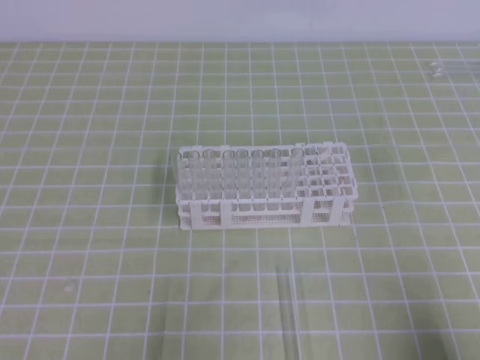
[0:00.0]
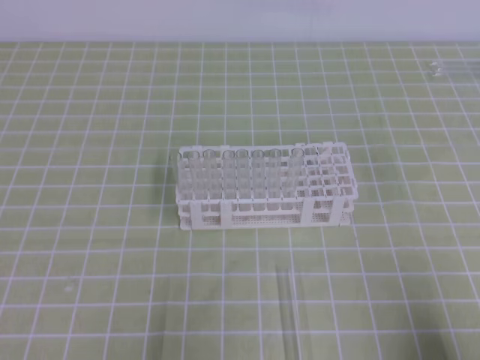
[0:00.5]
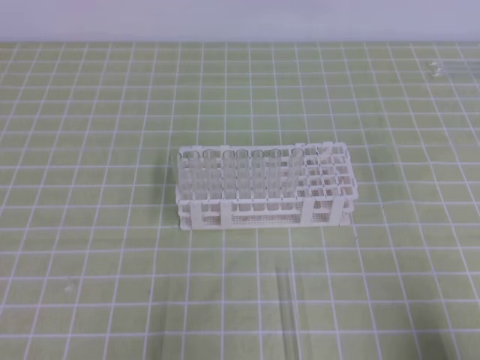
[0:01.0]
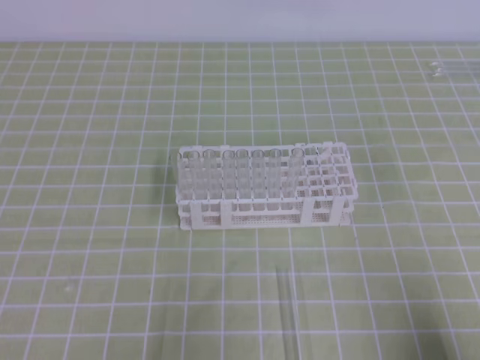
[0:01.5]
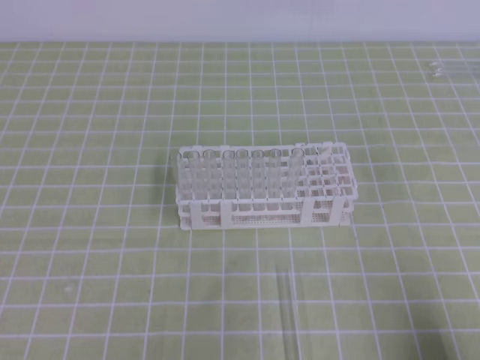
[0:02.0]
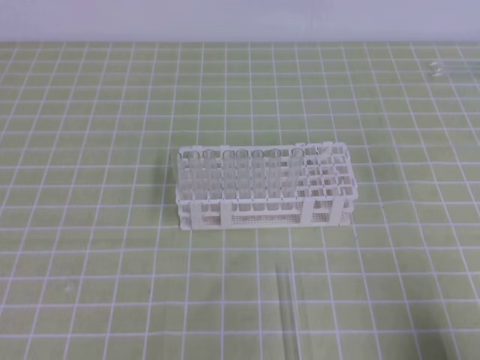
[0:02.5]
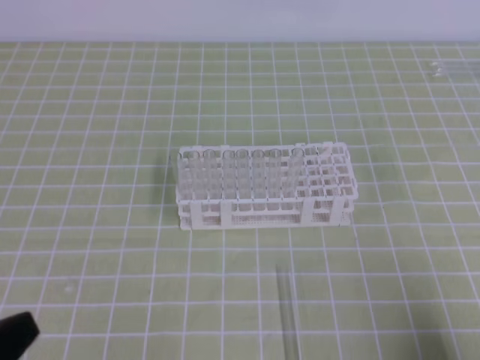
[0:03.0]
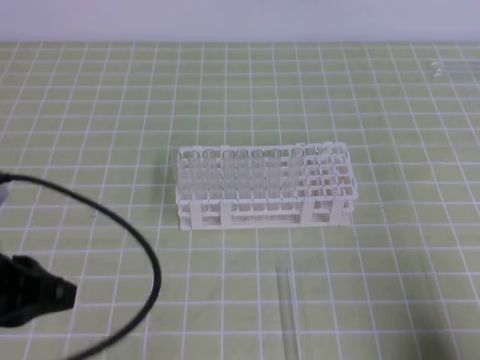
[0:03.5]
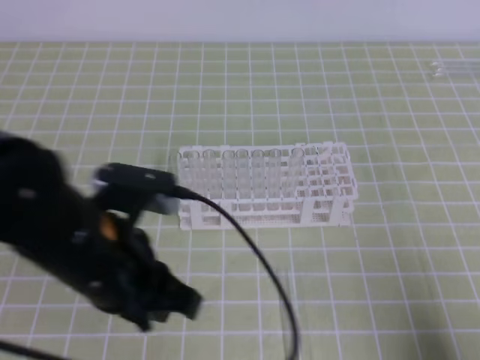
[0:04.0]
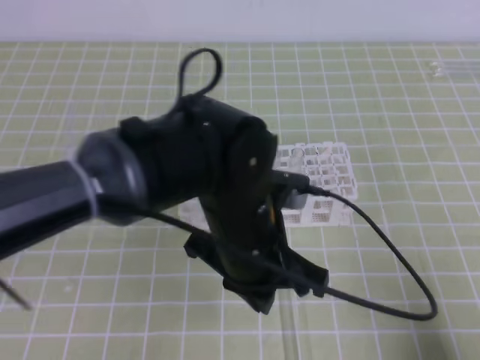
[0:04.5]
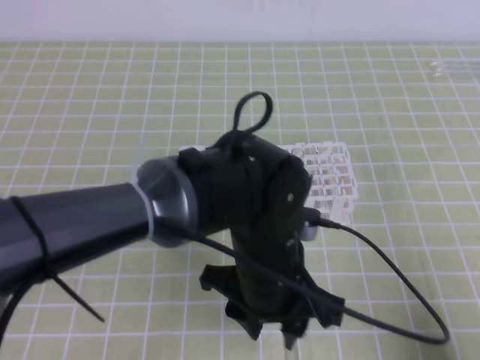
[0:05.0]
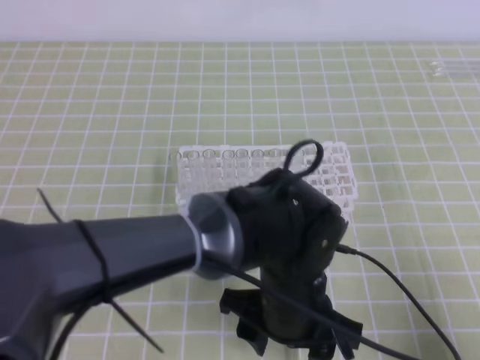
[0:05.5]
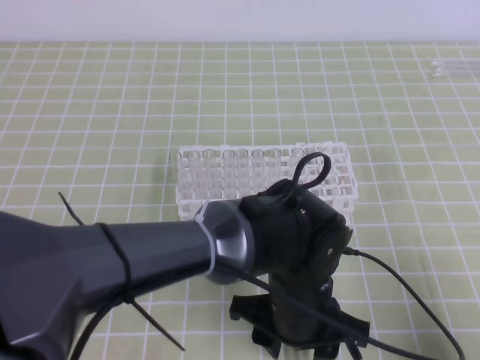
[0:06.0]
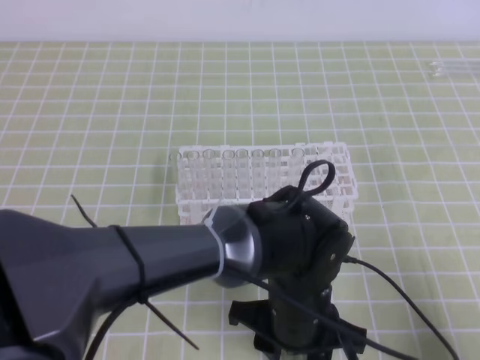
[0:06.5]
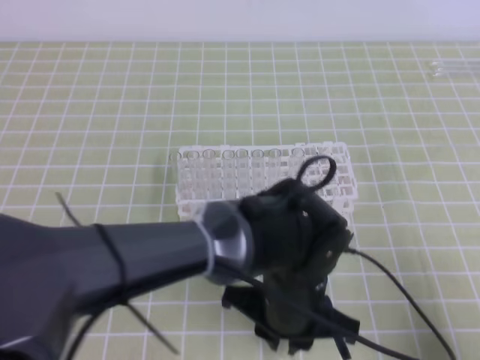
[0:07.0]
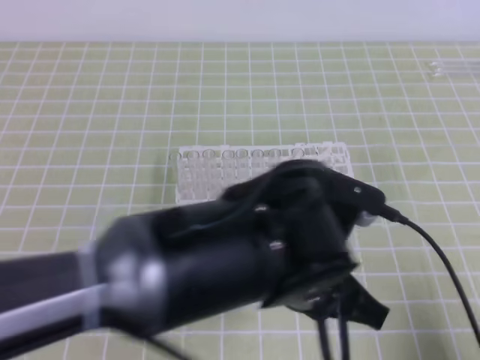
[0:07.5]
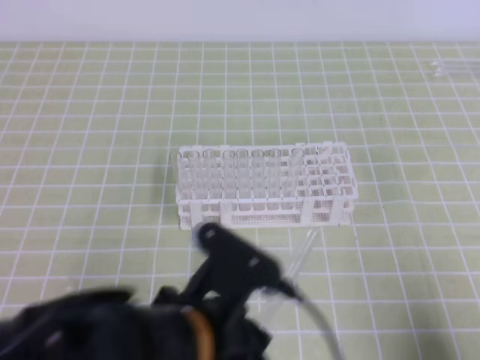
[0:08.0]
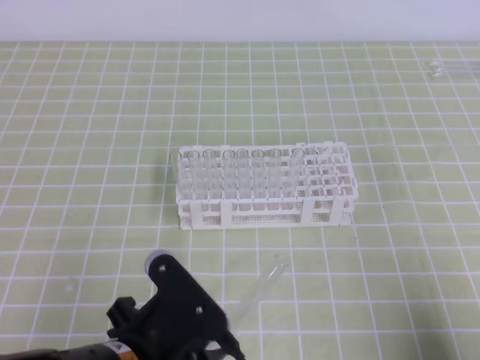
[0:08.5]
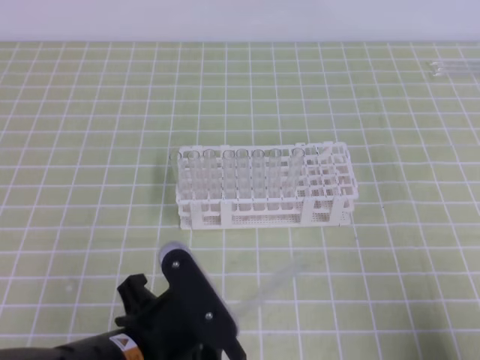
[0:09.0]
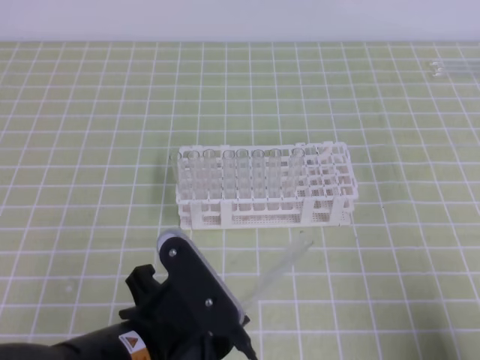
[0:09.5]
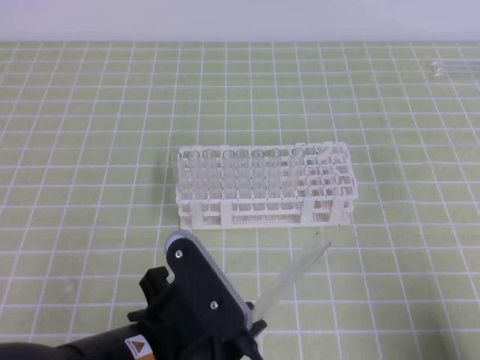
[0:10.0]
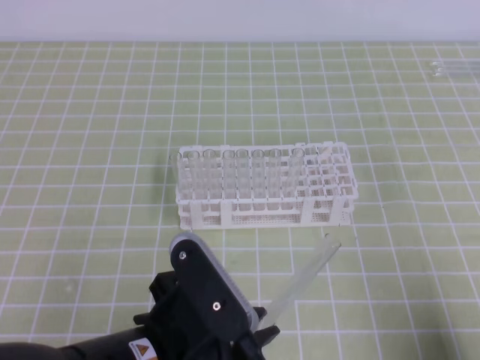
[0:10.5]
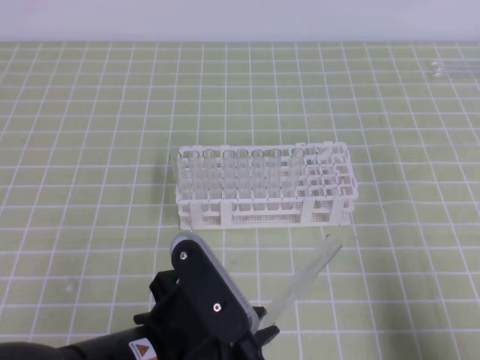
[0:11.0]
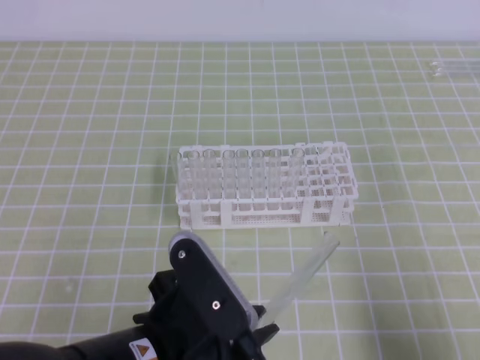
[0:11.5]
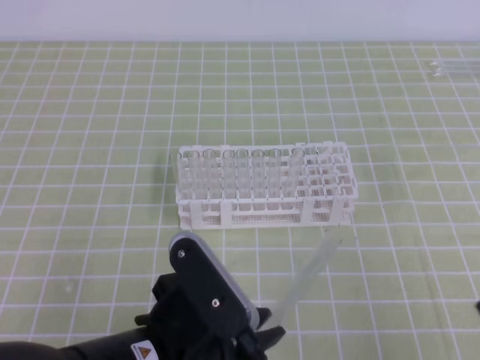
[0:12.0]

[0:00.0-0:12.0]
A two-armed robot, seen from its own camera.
0:02.0 to 0:04.0: The left gripper is displaced to the right, forward and upward by approximately 20 cm.
0:04.0 to 0:06.0: The left gripper heads to the right and downward, covering approximately 20 cm, and opens up.
0:06.0 to 0:08.0: The left gripper goes approximately 15 cm to the left, backward and upward, and closes its fingers.
0:10.0 to 0:12.0: The right gripper moves about 5 cm.

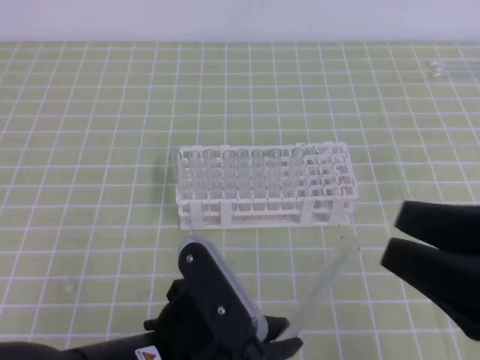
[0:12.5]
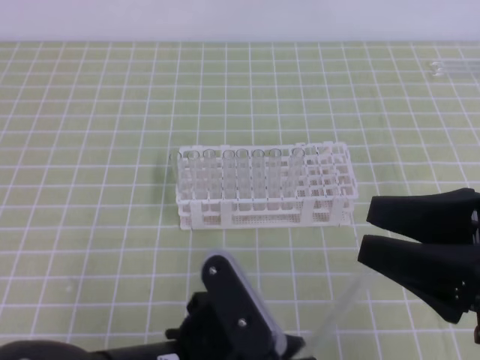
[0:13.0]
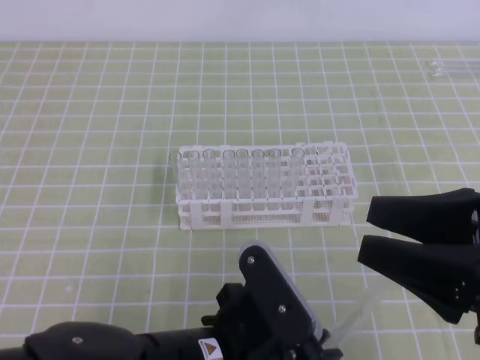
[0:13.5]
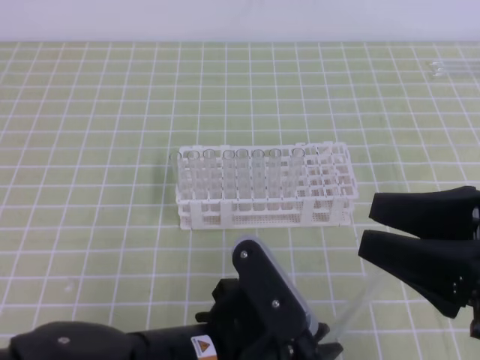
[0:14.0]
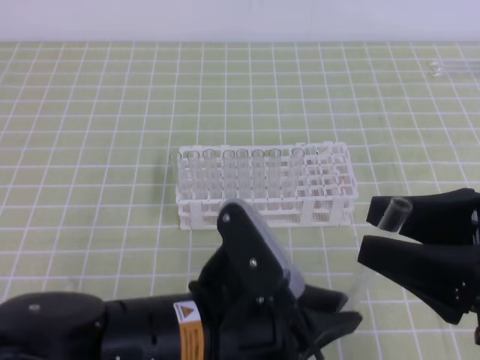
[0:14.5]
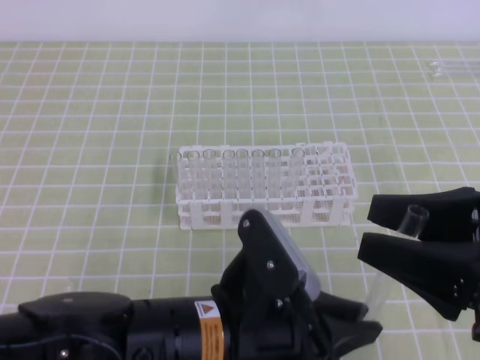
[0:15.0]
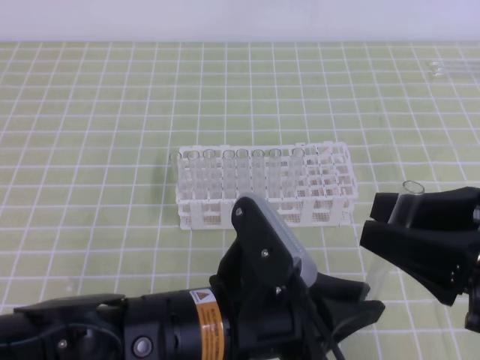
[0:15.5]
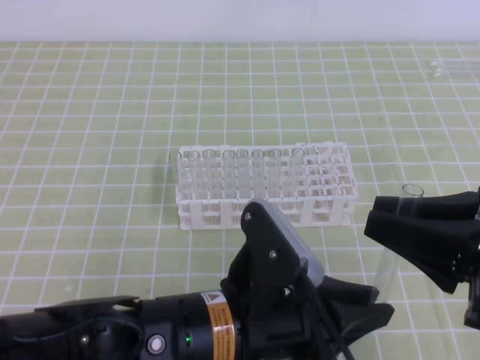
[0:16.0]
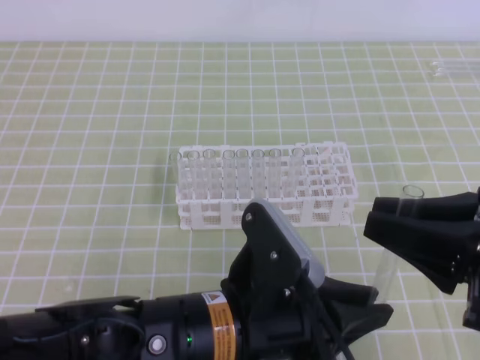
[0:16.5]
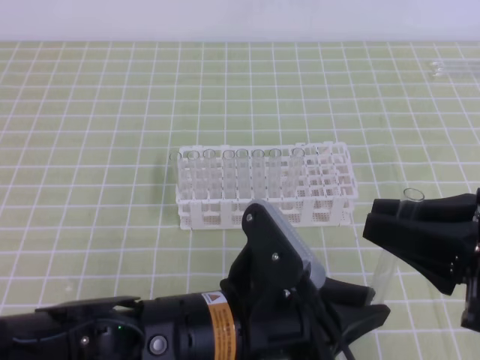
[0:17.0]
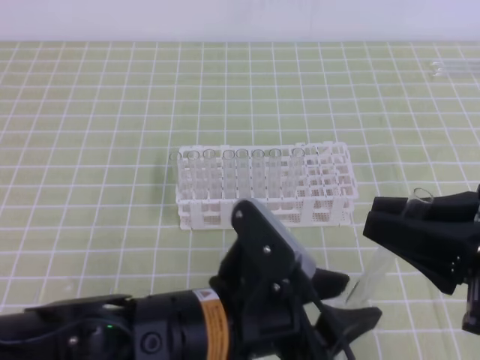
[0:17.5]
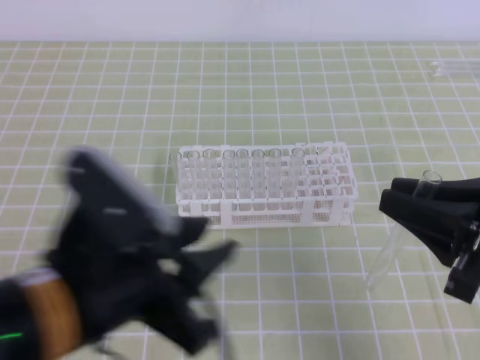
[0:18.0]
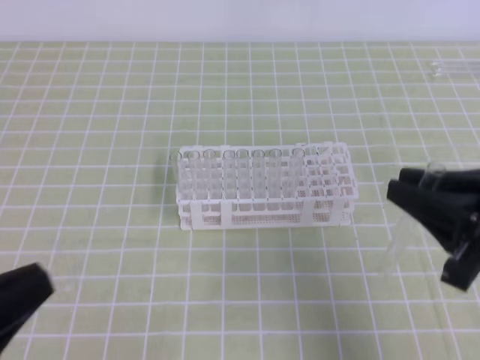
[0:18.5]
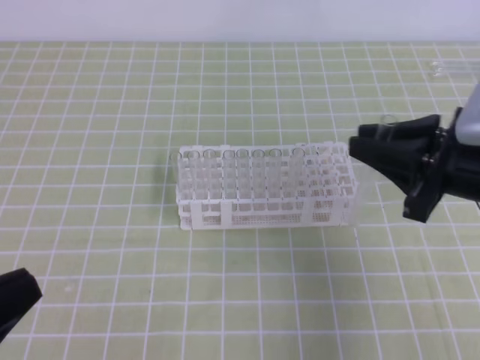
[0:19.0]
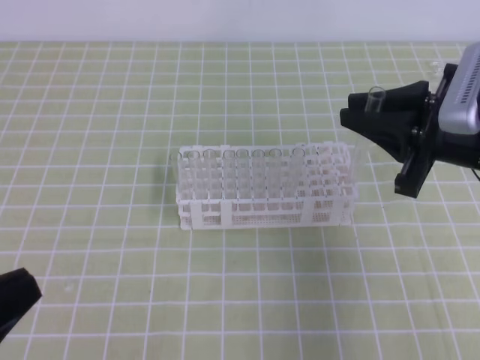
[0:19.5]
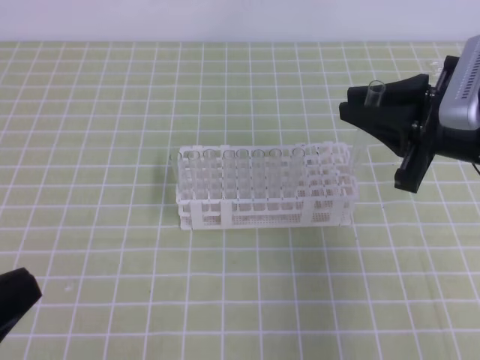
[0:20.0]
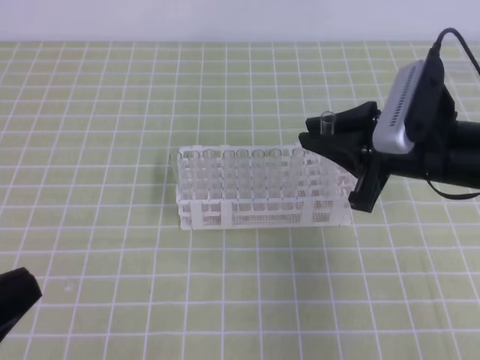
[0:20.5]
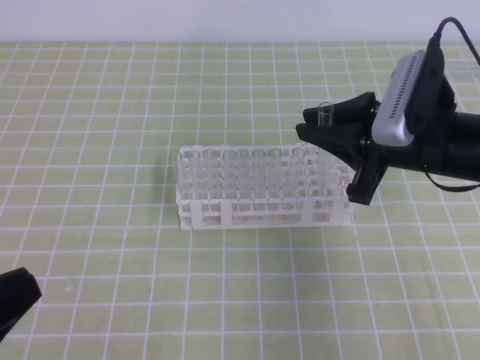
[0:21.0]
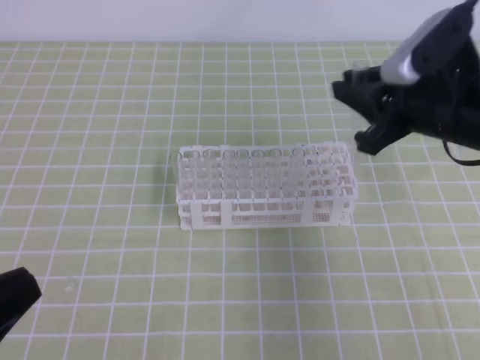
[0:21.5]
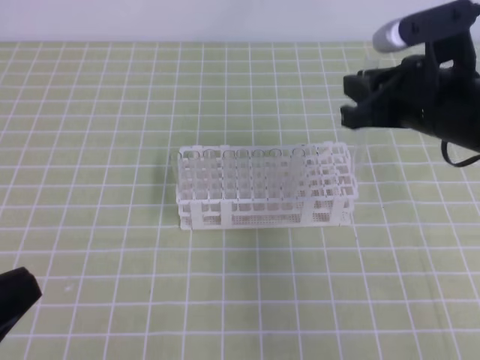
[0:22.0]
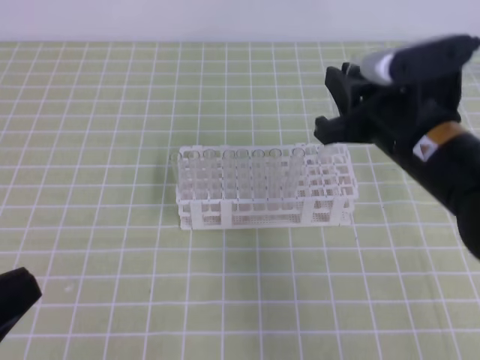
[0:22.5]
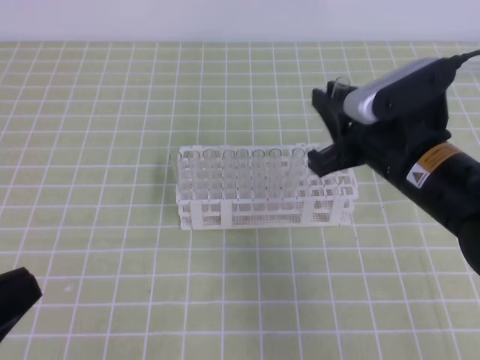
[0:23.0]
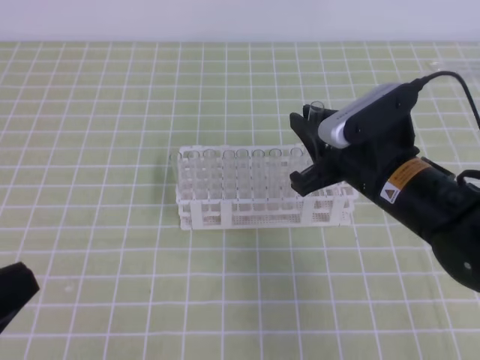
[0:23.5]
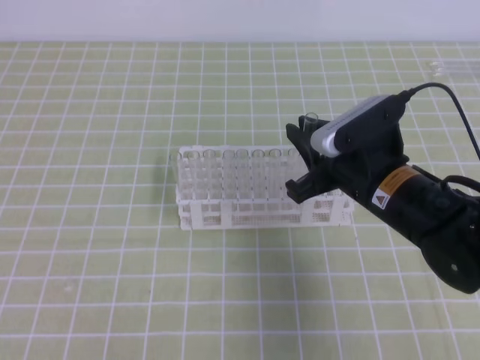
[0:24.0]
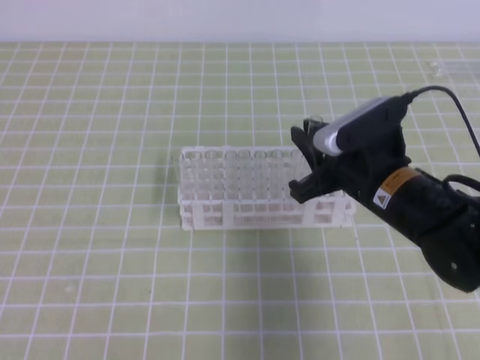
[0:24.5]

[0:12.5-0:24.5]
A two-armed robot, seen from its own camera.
0:12.5 to 0:14.5: The grippers move only a little.
0:14.5 to 0:16.5: The right gripper closes.
0:16.5 to 0:18.5: The left gripper travels to the left by some 20 cm, and opens, then closes once more.
0:18.5 to 0:20.5: The right gripper is displaced forward and to the left by some 10 cm.
0:22.5 to 0:24.5: The left gripper moves about 5 cm. Meanwhile the right gripper moves downward, roughly 5 cm.

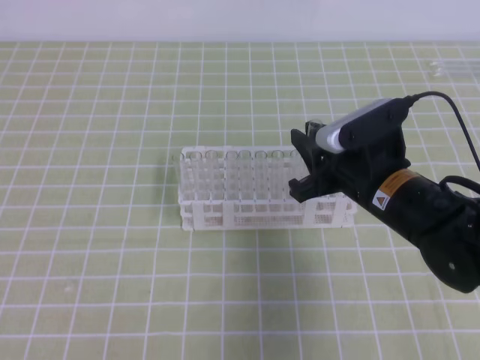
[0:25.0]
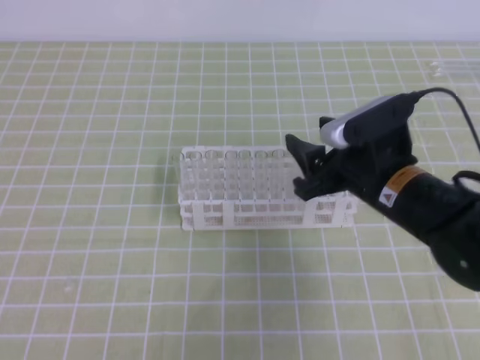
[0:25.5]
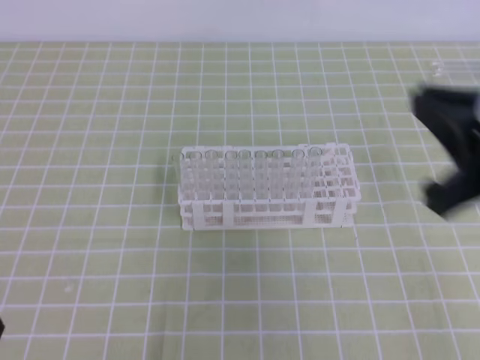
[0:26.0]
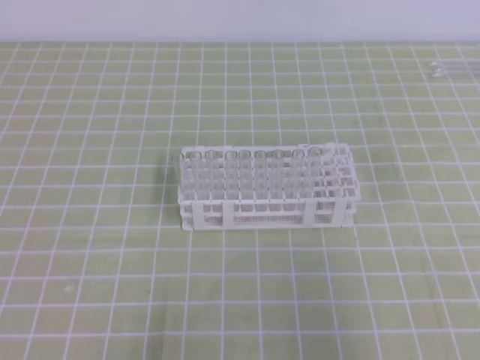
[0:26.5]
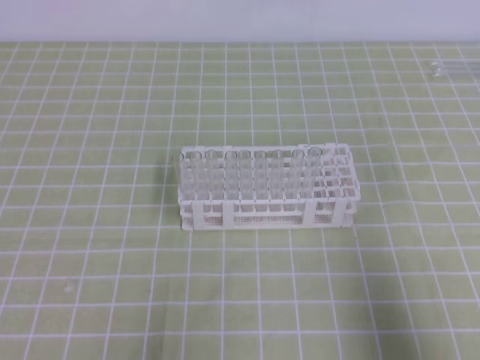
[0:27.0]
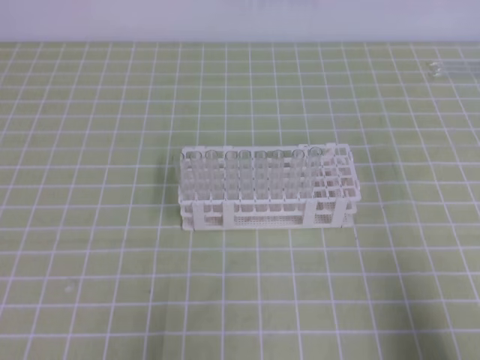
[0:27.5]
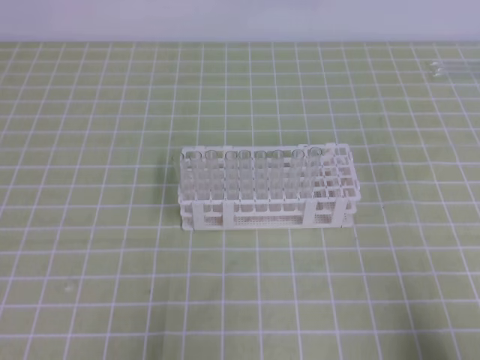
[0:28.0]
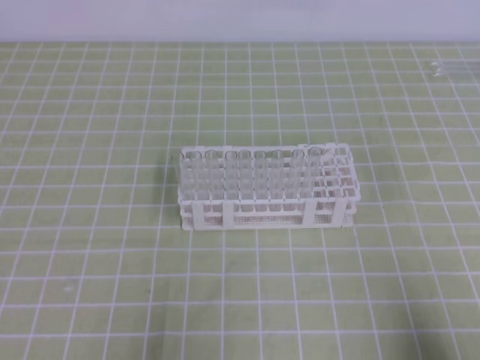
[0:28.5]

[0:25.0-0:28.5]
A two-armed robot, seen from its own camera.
0:25.0 to 0:27.0: The right gripper heads backward and to the right, covering some 30 cm, and closes up, while the left gripper moves downward, approximately 5 cm.
0:27.0 to 0:28.5: The right gripper travels downward by roughly 10 cm.
